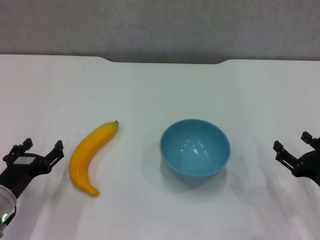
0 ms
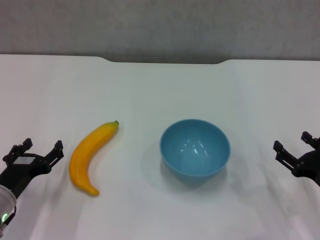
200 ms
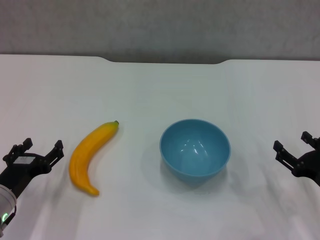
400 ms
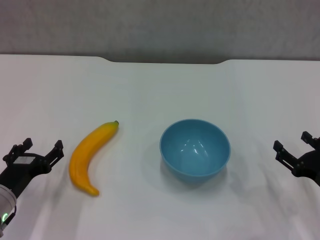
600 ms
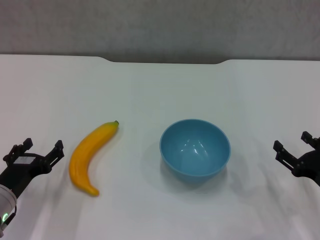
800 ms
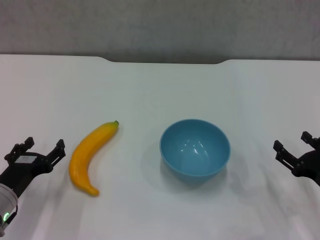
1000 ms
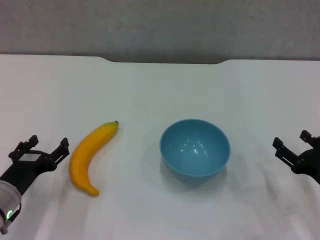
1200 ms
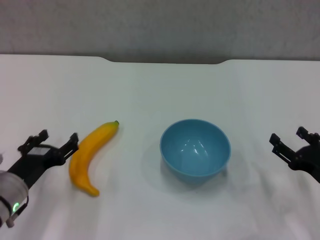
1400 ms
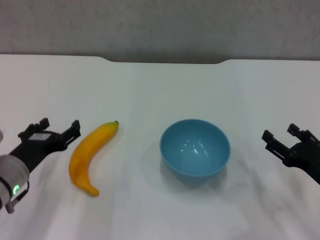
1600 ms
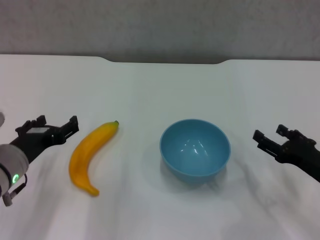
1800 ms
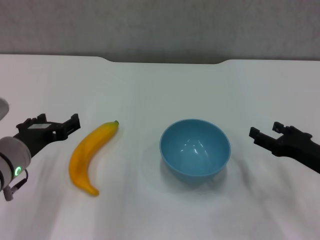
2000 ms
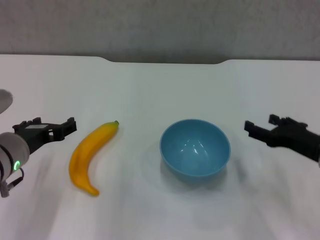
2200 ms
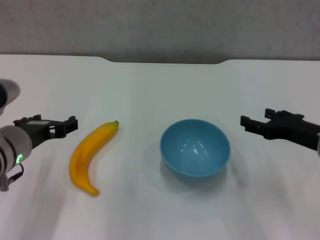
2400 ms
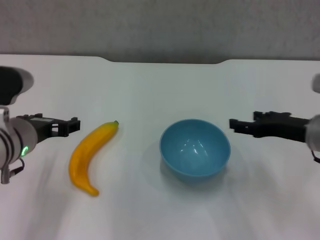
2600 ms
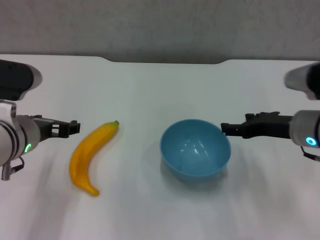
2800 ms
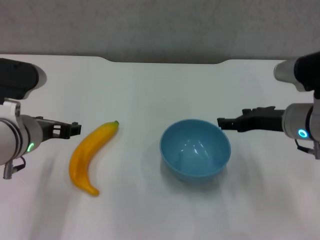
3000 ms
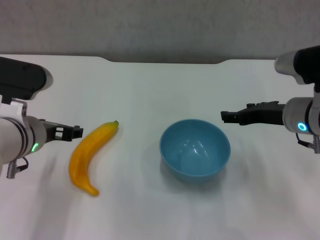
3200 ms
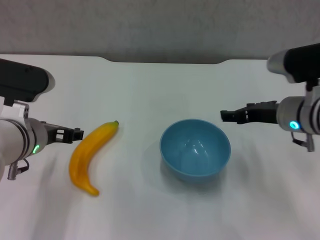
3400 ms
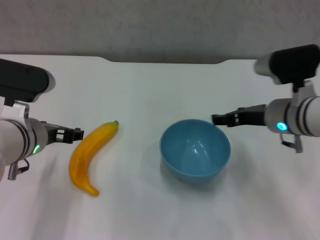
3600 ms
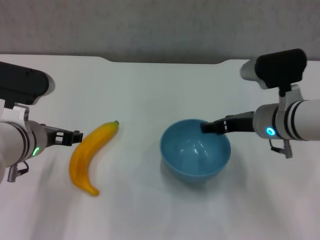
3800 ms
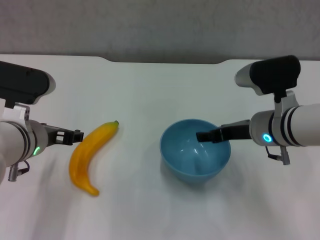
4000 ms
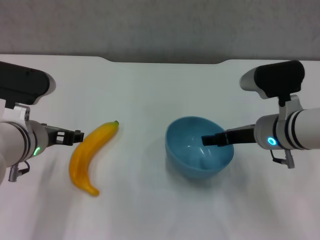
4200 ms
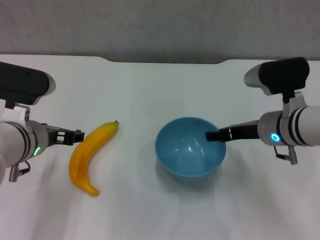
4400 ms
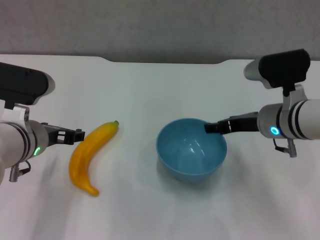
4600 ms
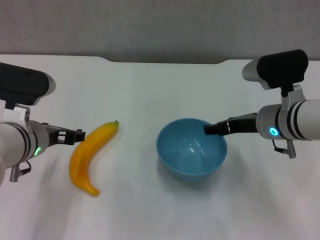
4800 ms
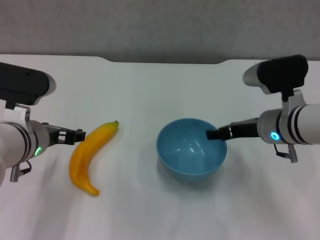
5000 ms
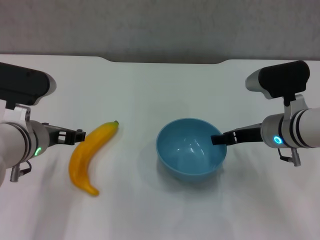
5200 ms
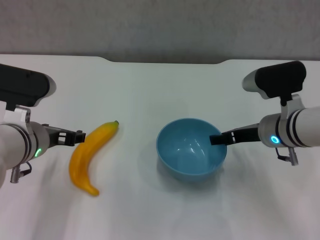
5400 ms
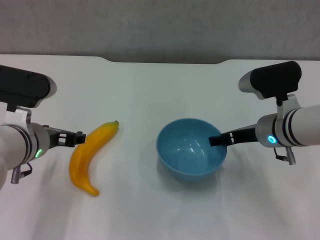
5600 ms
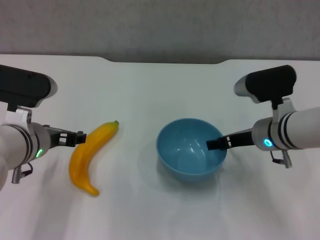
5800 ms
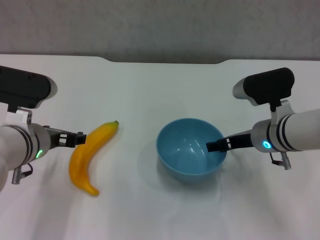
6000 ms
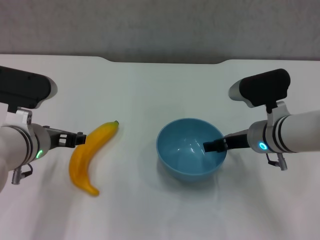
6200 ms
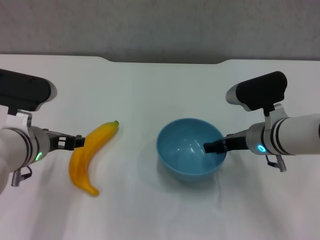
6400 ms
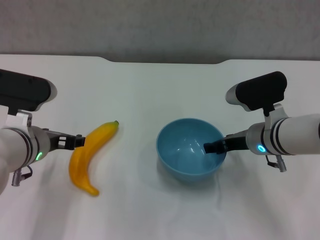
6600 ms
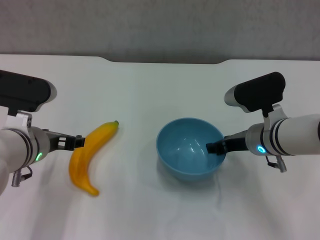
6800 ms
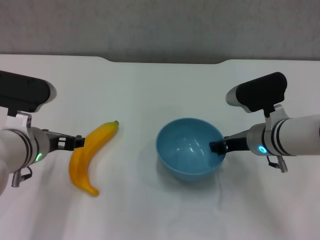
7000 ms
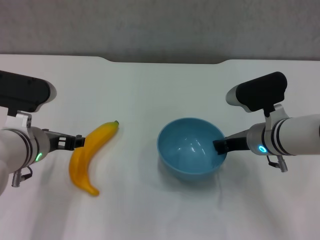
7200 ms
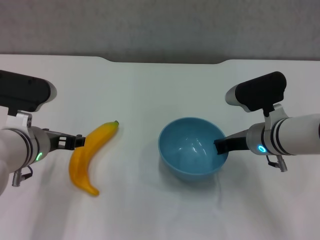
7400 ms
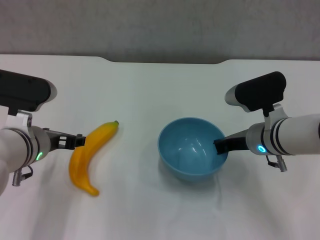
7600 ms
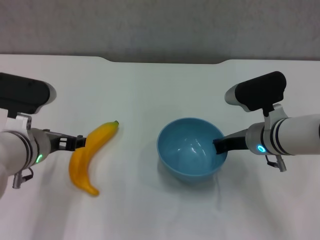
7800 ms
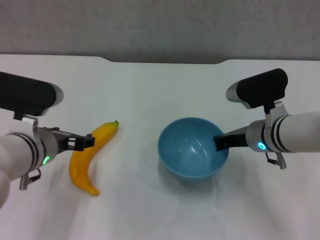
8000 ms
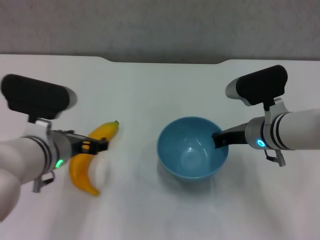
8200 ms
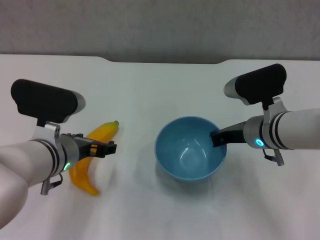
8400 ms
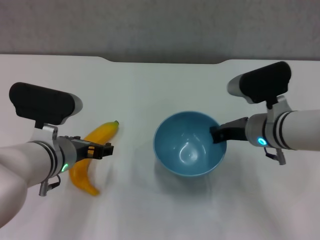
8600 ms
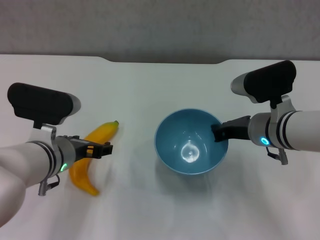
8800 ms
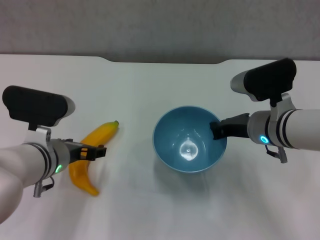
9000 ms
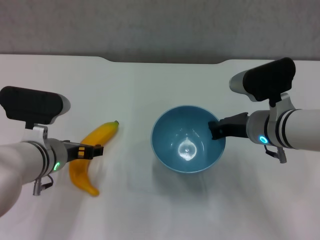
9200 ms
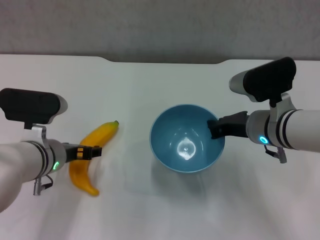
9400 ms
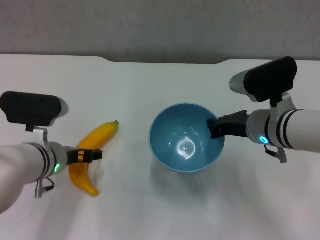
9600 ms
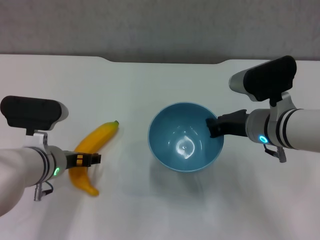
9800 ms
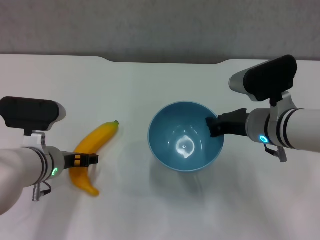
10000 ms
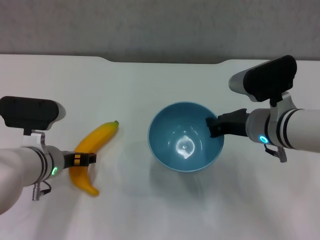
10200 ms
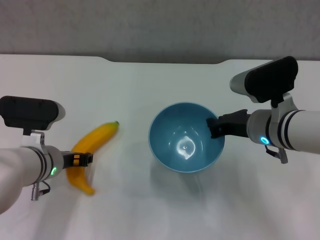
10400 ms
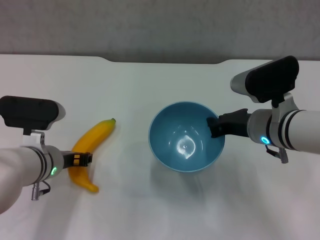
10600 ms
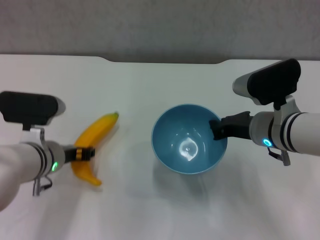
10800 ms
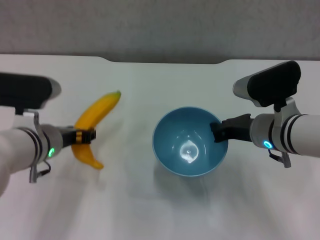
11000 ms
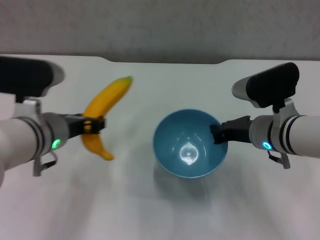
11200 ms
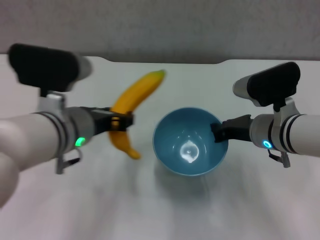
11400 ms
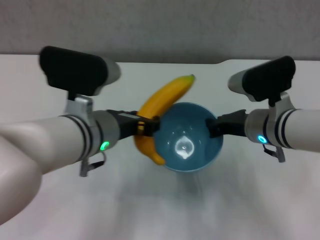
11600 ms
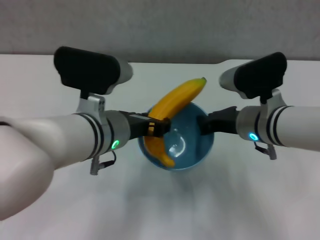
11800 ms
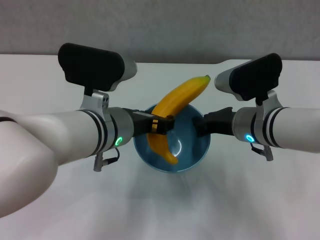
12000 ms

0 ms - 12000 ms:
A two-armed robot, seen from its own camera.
Step, 0 ms - 7400 ms: Grasp the blue bowl with right gripper.
Step, 7600 ms - 8600 ms: Lift the blue bowl with right gripper.
Step, 8800 ms - 10600 ms: Grasp the banana with left gripper.
0 ms - 1600 ms: The left gripper moves roughly 5 cm.
1600 ms - 3000 ms: The right gripper shifts about 15 cm upward, forward and to the left. Meanwhile the left gripper moves upward, about 10 cm.
3000 ms - 4400 ms: The grippers stay close to where they were, moving slightly.
4400 ms - 6000 ms: There are only small adjustments of the grippers.
6000 ms - 7600 ms: The right gripper closes up.
7600 ms - 9000 ms: The grippers move only a little.
9000 ms - 10400 ms: The left gripper closes up.
10400 ms - 12000 ms: The left gripper goes about 15 cm to the right and upward, and closes its fingers.

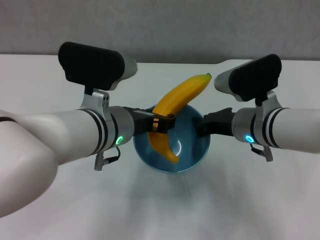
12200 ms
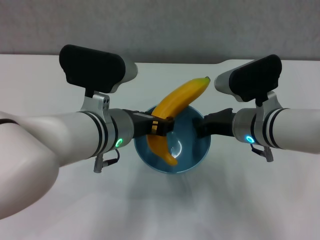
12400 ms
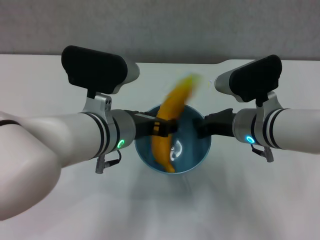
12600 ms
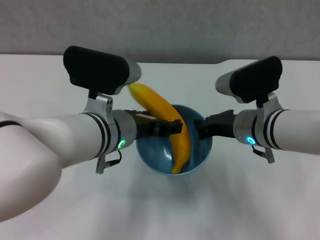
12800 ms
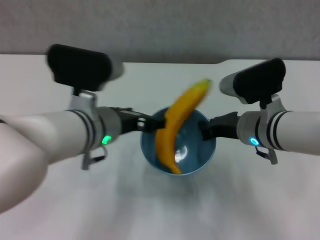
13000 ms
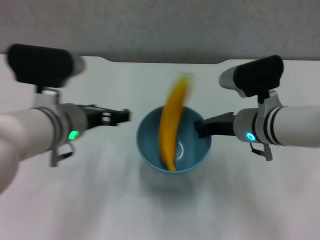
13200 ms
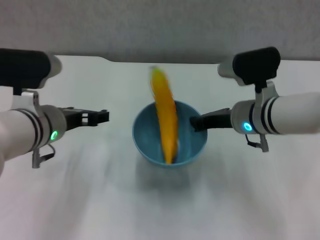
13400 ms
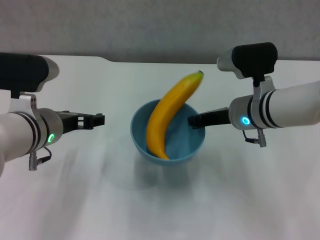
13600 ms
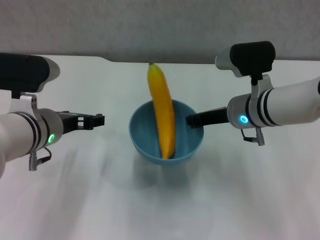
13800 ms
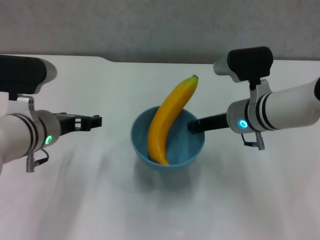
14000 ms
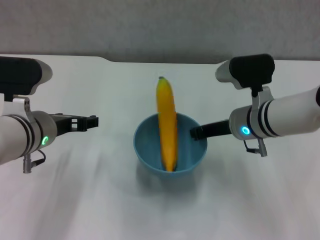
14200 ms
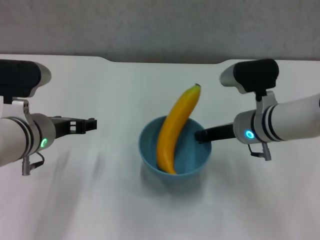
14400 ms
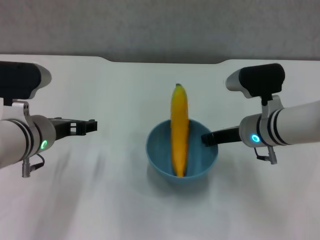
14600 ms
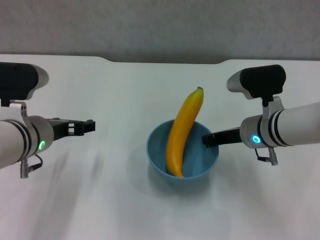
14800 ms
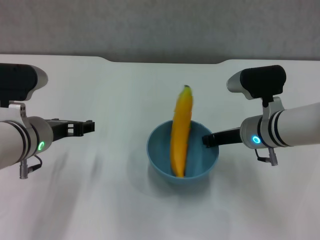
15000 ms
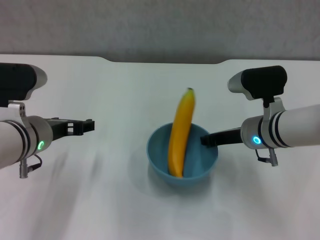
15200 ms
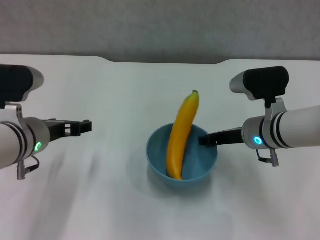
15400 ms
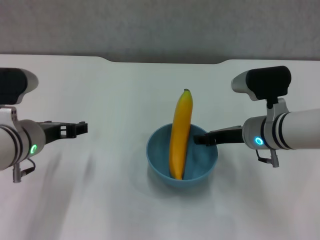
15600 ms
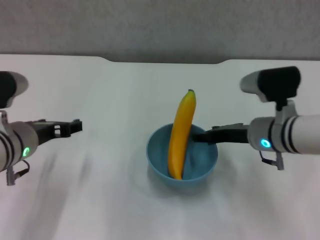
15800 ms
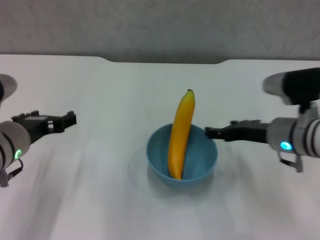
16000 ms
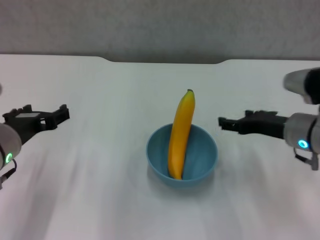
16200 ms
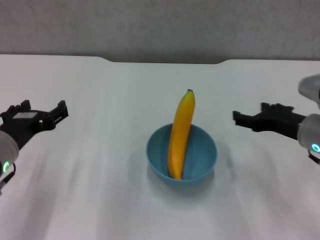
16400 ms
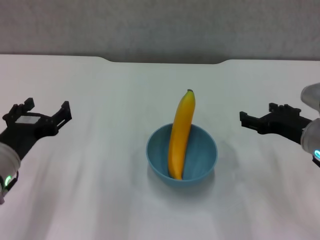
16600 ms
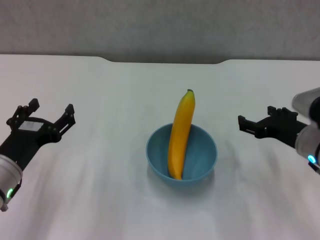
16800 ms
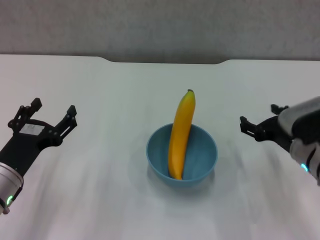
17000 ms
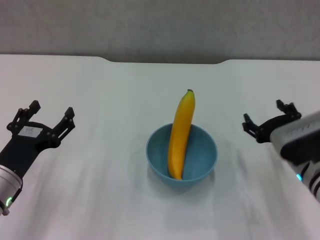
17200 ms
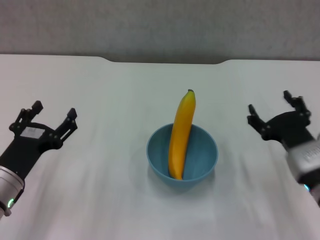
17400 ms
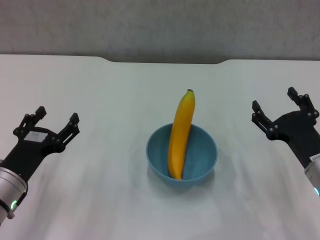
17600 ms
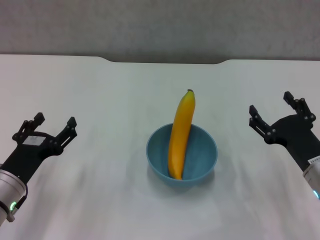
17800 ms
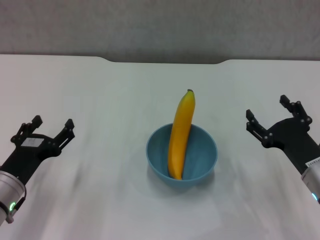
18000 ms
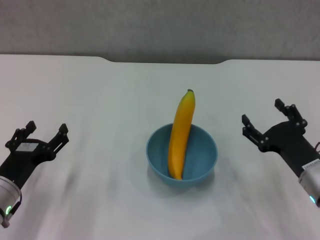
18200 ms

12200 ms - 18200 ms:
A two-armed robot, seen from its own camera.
Step, 13200 ms - 15800 ms: Place the bowl on the table with right gripper.
12200 ms - 13800 ms: The left gripper goes about 10 cm to the left, and opens up.
15200 ms - 16600 ms: The left gripper is displaced backward by some 5 cm. Meanwhile the right gripper heads to the right and backward, covering about 10 cm, and opens.
16600 ms - 18200 ms: The right gripper shifts some 10 cm downward and backward. Meanwhile the left gripper travels downward by approximately 10 cm.
